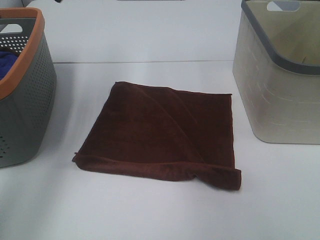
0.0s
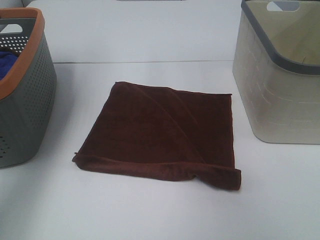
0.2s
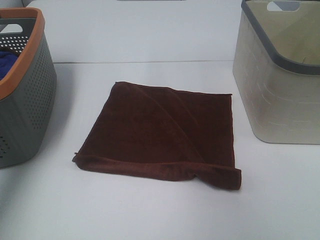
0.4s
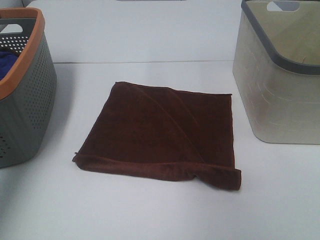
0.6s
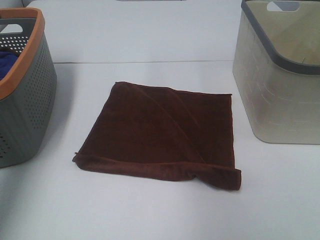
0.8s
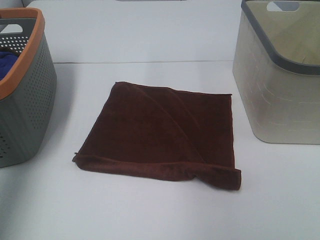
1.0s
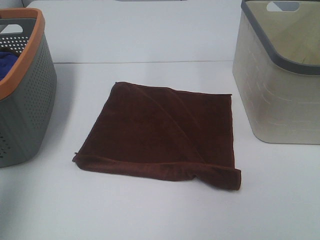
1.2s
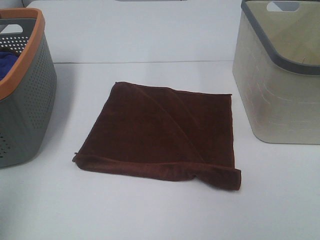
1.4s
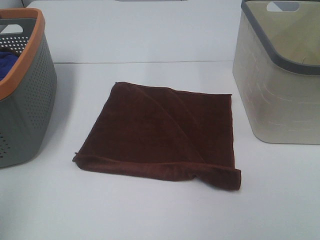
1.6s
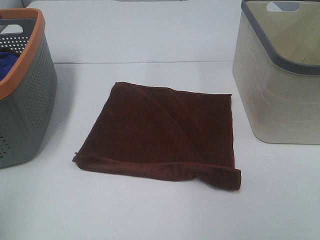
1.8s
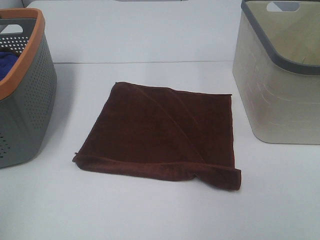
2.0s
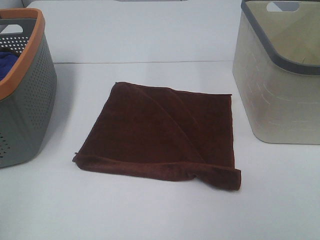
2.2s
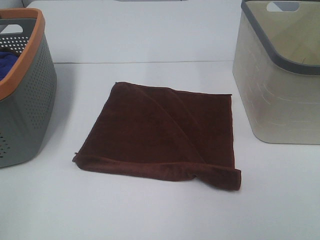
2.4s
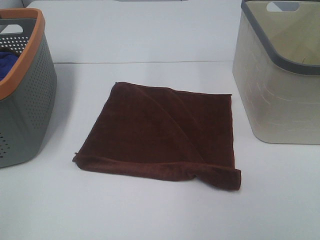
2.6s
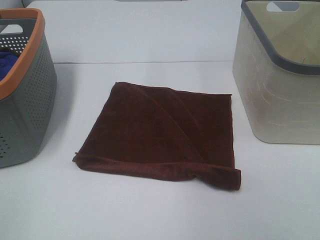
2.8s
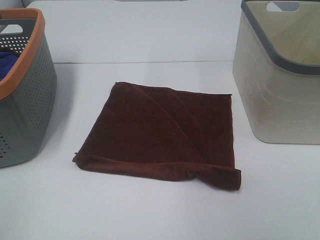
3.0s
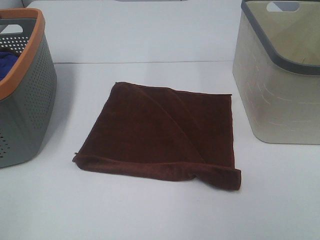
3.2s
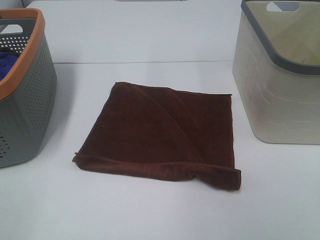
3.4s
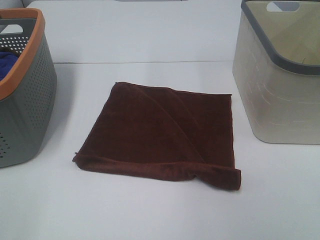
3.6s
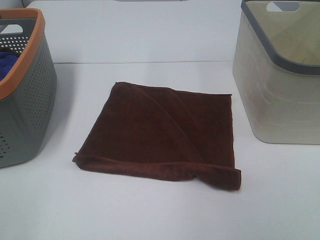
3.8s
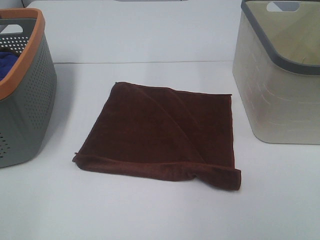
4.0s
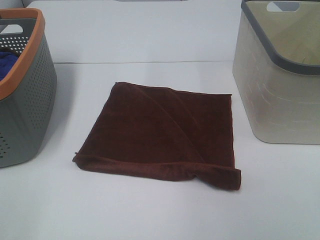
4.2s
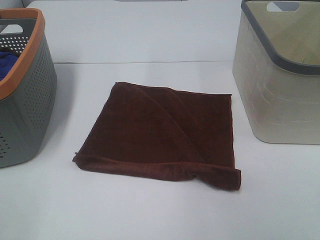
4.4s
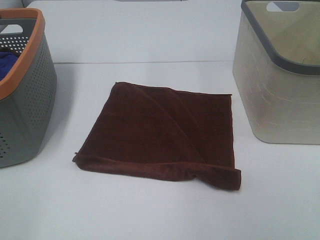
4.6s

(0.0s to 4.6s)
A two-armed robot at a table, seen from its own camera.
Task of the whole recording: Remove the towel and place it.
0.0s - 1.6s: The grippers both shift backward by some 40 cm.

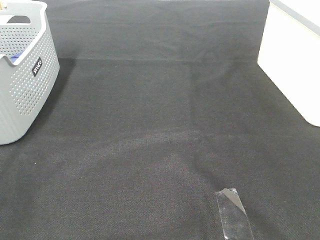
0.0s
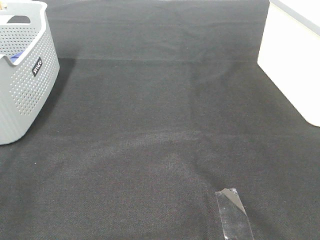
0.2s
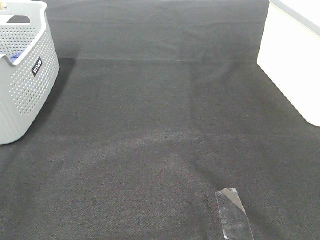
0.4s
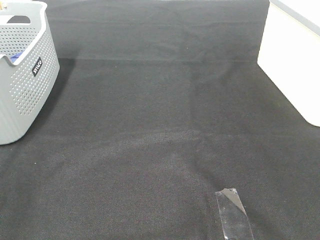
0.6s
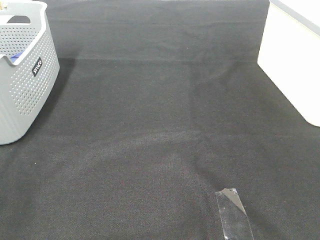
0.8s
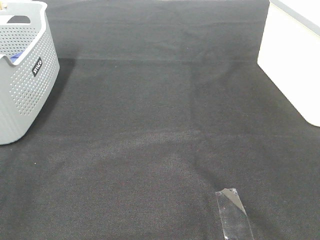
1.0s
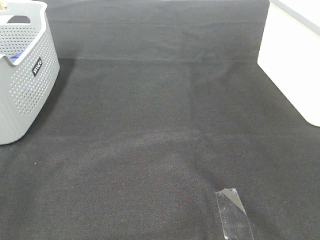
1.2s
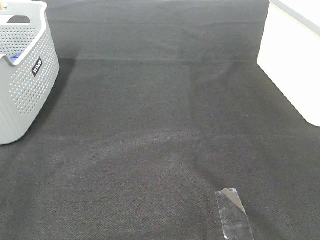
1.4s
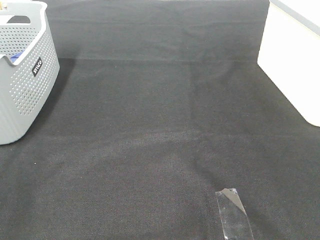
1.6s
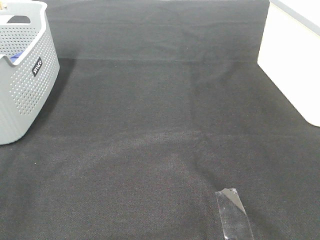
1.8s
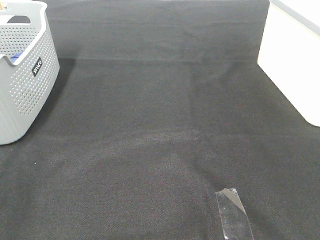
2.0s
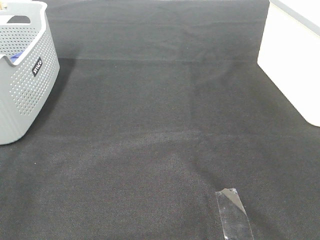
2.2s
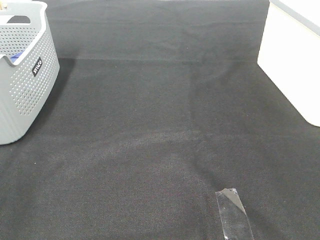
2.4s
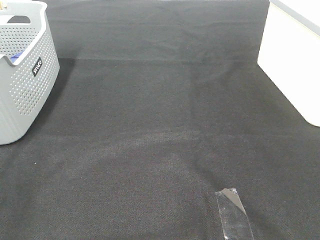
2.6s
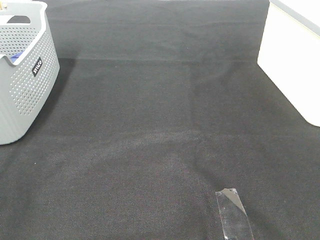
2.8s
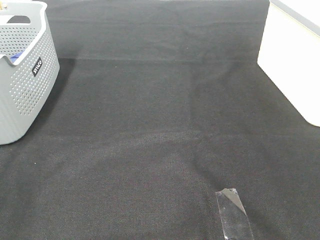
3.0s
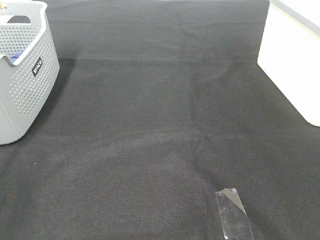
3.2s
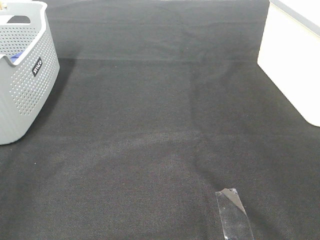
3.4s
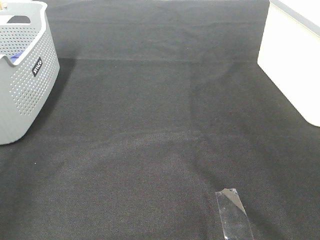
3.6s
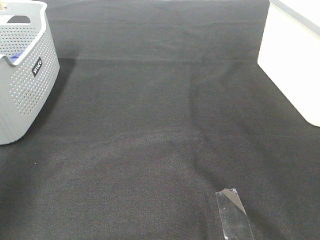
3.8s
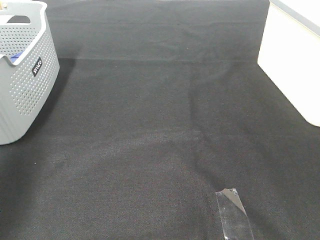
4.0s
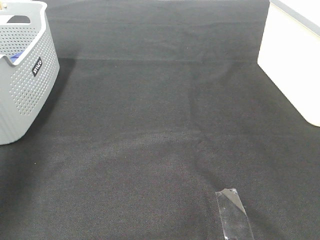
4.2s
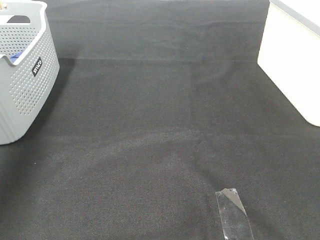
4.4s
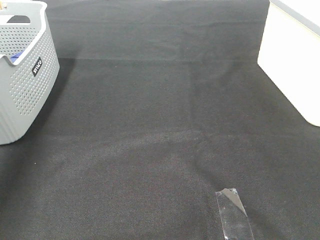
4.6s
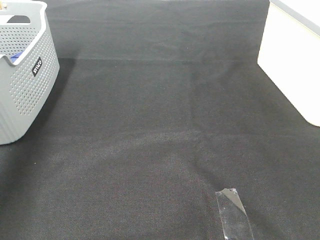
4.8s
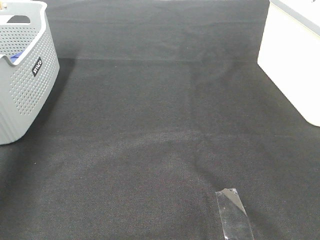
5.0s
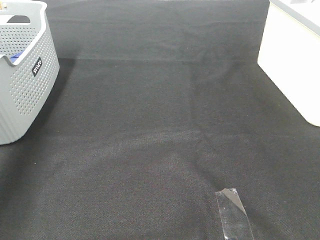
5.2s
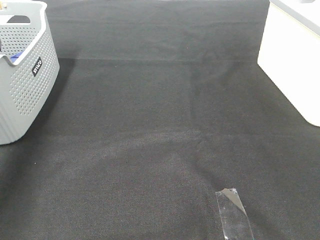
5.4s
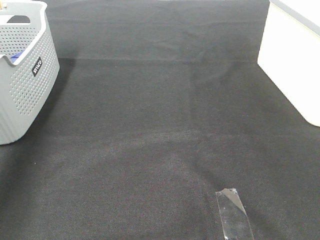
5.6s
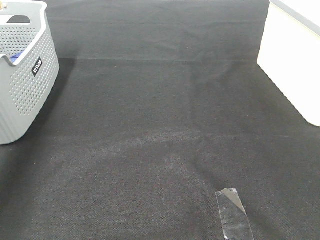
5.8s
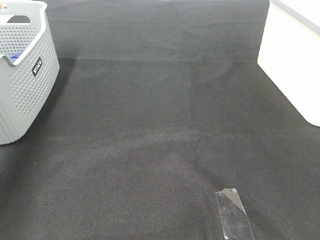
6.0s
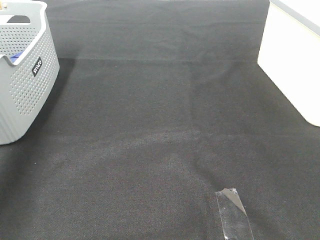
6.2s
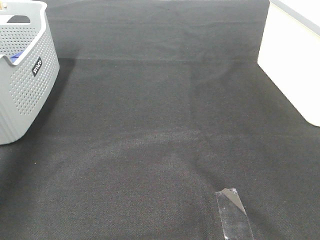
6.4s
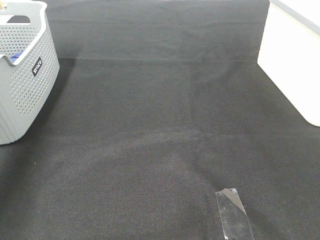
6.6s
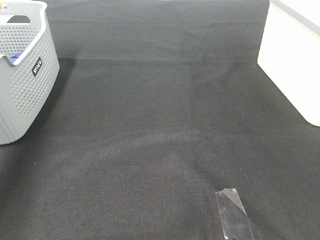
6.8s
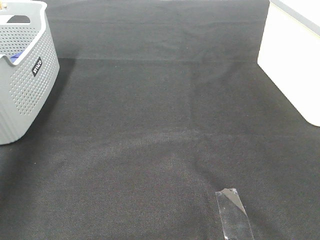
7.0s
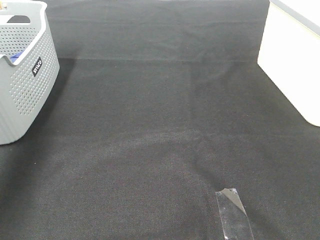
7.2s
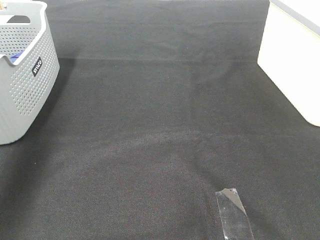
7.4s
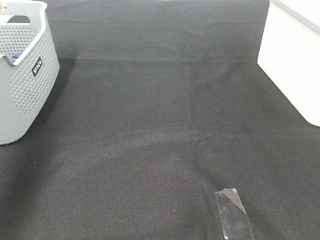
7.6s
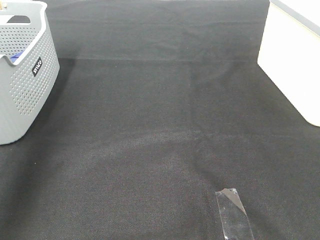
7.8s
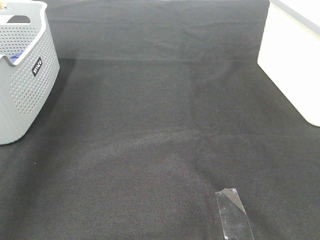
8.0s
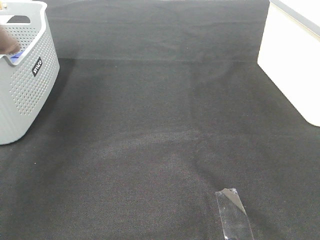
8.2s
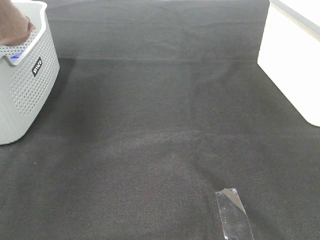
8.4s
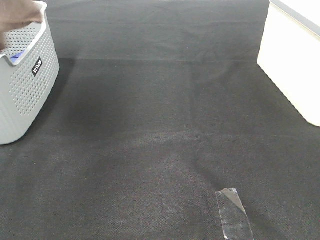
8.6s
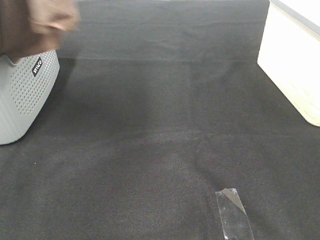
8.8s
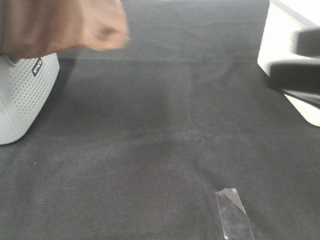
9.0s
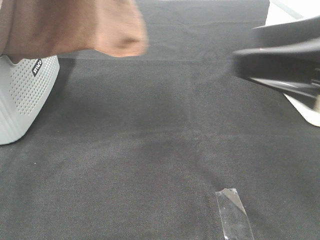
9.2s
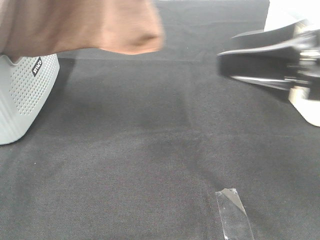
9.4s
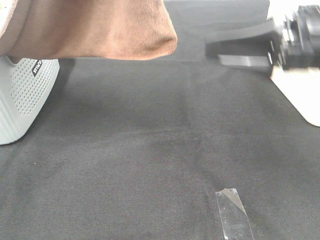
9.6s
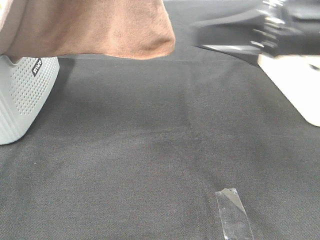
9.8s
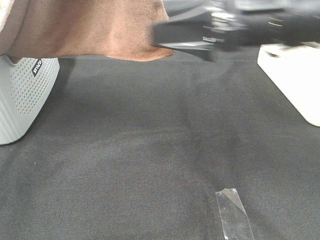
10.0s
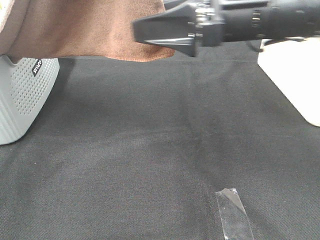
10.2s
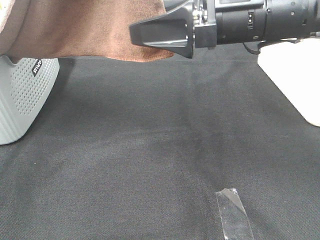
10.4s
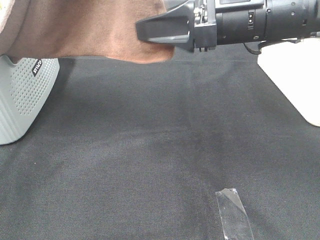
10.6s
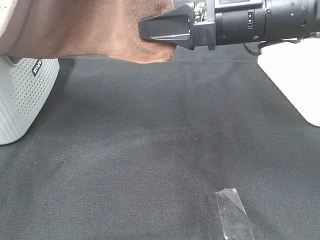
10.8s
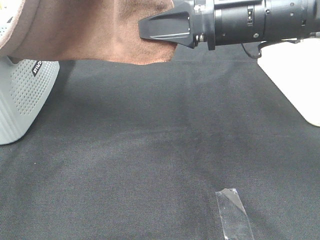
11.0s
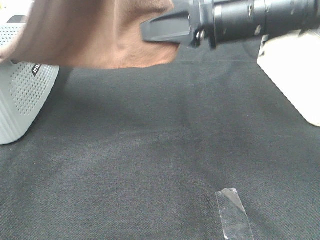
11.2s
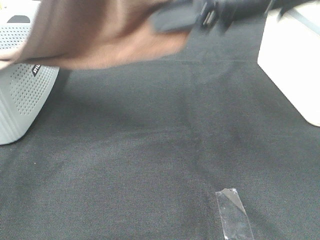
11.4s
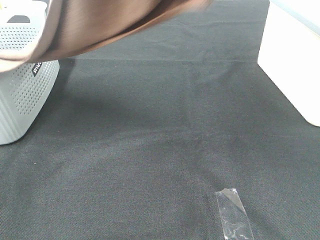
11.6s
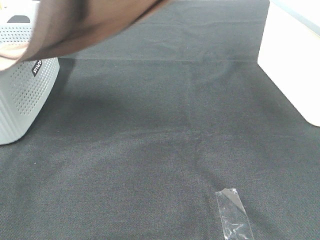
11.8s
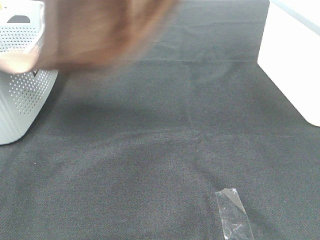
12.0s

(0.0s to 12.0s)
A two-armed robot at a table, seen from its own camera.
Task of the whole recording: Remove the towel and place it.
Step, 8.0s - 10.8s: Right hand: grab a corner of the brown towel and straighten it.
0.0s - 3.0s: Both grippers stay about where they are.
3.0s - 4.4s: The left gripper heads forward, covering about 35 cm.
7.6s - 9.0s: The left gripper moves to the right, upward and backward, about 30 cm. The right gripper is displaced forward and to the left by approximately 15 cm.
9.0s - 10.4s: The right gripper is displaced forward and to the left by some 20 cm.
10.4s - 12.0s: The right gripper heads upward, covering approximately 25 cm, and closes its fingers, while the left gripper shifts by roughly 5 cm.

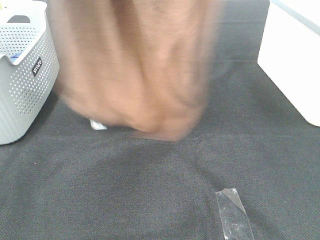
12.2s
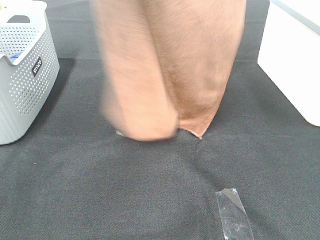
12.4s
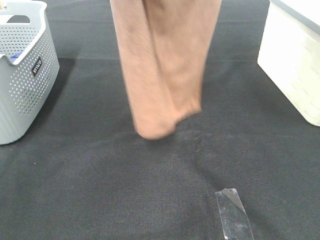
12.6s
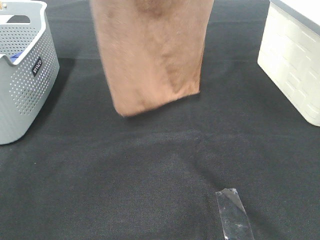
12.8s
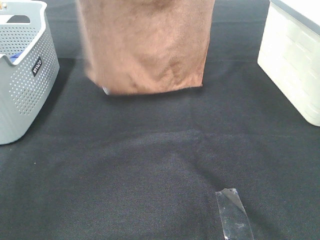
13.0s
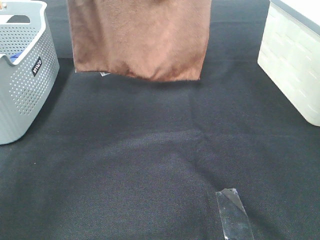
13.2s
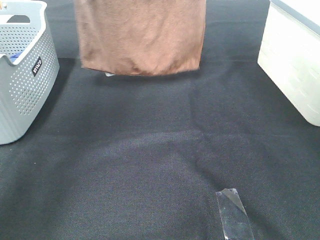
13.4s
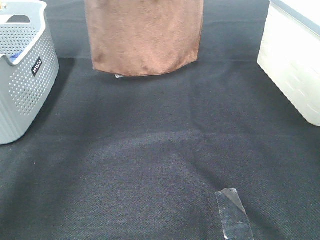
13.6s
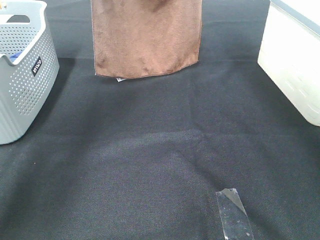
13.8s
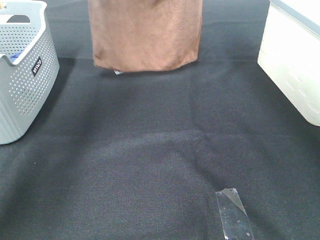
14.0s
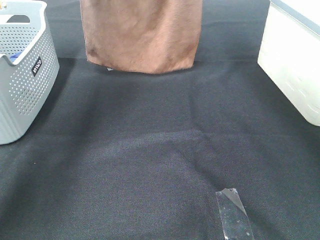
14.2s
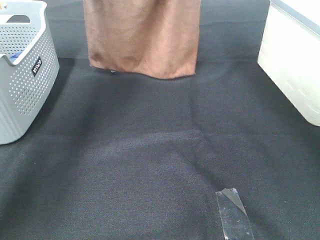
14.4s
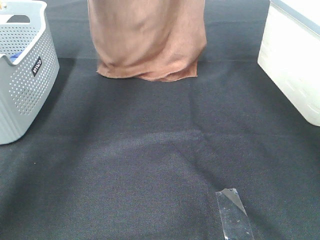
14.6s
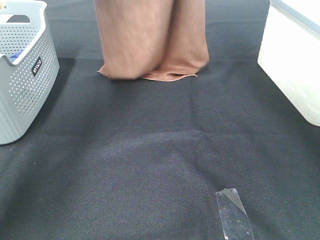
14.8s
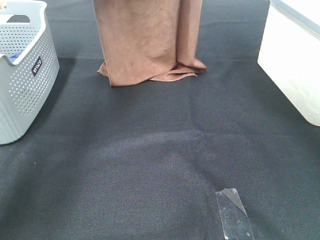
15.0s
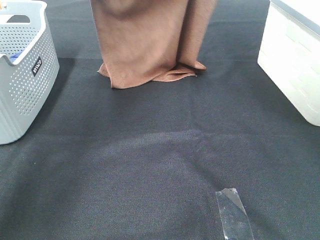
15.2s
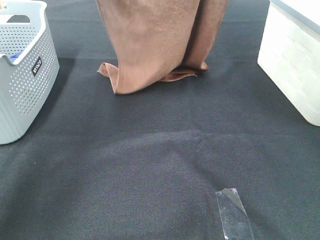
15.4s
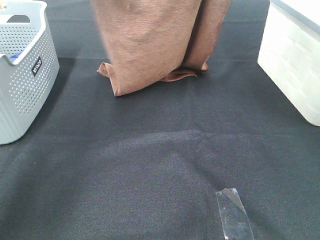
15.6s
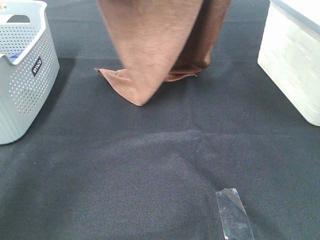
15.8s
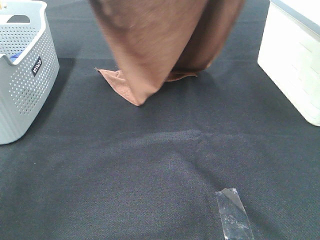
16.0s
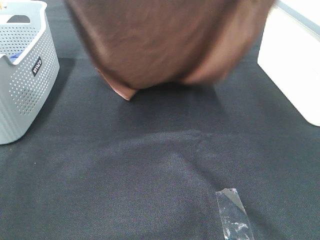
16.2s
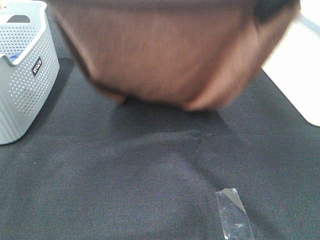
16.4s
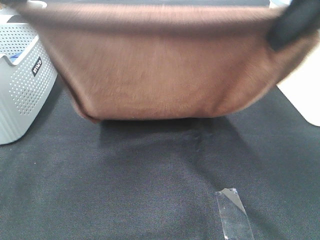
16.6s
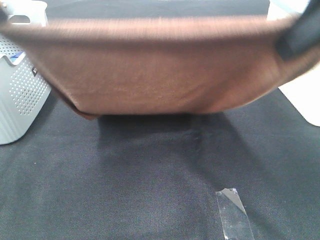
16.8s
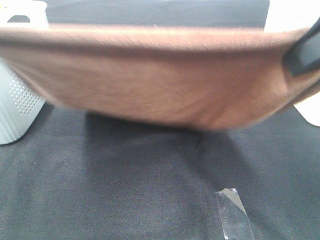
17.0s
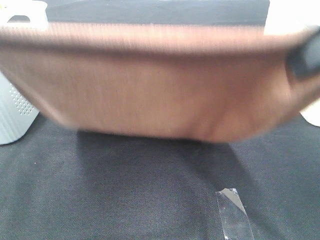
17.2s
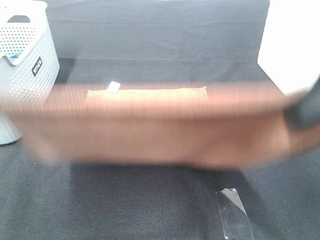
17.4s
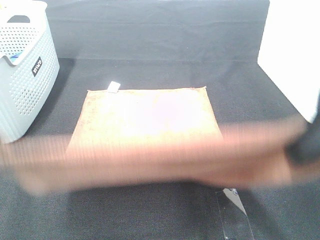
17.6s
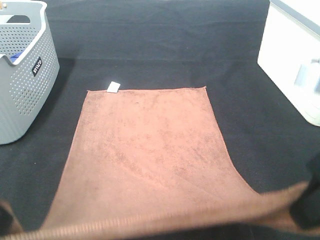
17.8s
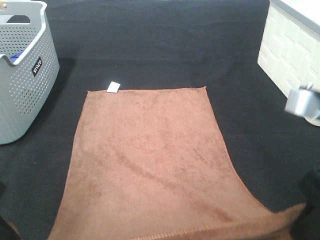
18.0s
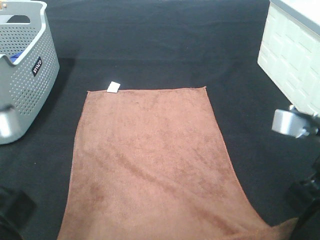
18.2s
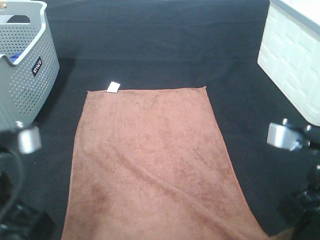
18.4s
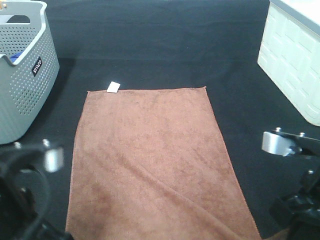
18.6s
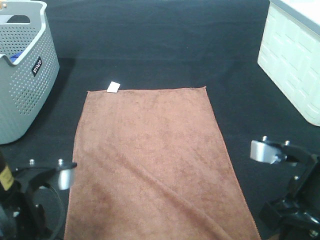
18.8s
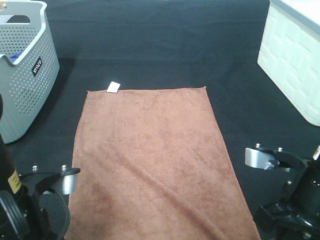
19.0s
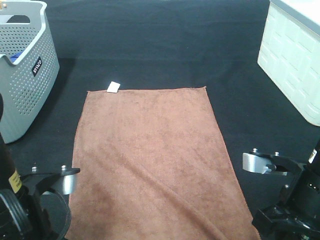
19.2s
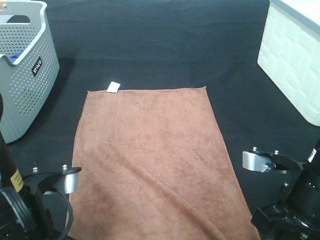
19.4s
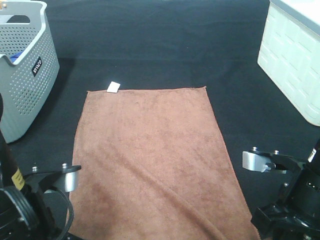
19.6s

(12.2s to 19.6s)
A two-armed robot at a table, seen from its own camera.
Task of the whole recording: Remove the towel and place it.
Step, 12.2s - 16.0s: Left hand: spread the brown towel flat on the table.
Step, 12.2s - 16.0s: Right hand: spread the brown towel flat on the table.
12.2s - 13.6s: Both grippers travel together forward, roughly 15 cm.
13.6s - 15.2s: Both grippers move downward, about 5 cm.
15.2s - 16.6s: Both grippers travel together backward, some 25 cm.
16.6s - 18.2s: The right gripper heads downward and backward, covering about 20 cm. The left gripper moves downward, some 20 cm.
18.2s - 19.6s: The grippers both shift downward by about 5 cm.
